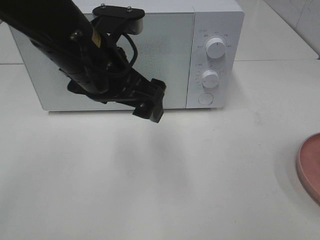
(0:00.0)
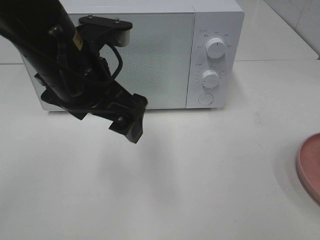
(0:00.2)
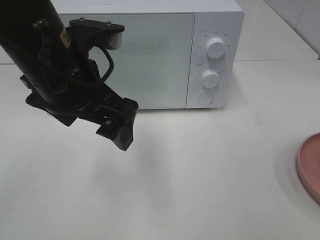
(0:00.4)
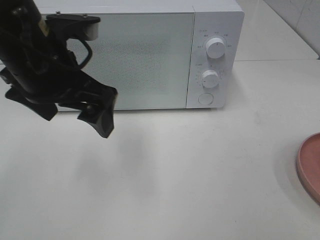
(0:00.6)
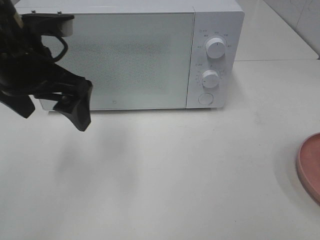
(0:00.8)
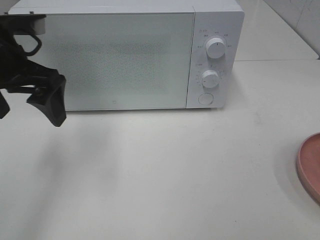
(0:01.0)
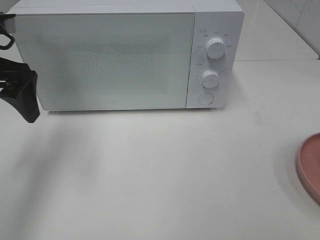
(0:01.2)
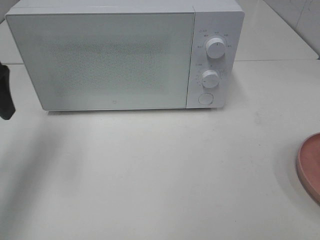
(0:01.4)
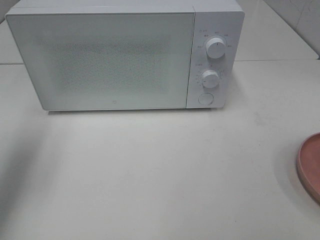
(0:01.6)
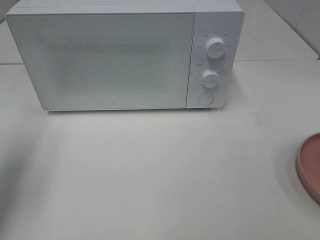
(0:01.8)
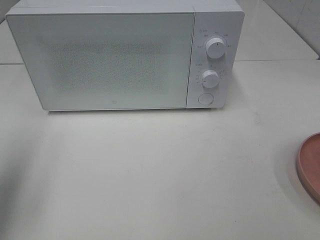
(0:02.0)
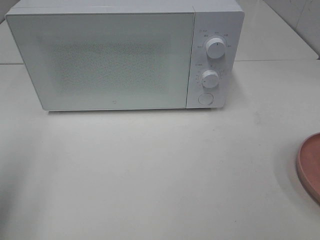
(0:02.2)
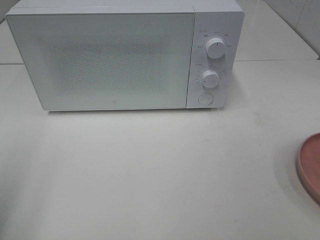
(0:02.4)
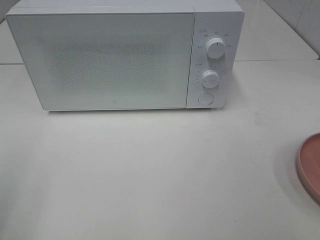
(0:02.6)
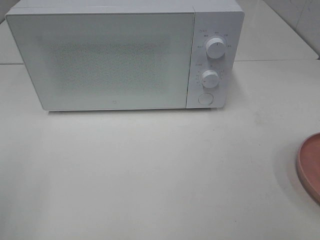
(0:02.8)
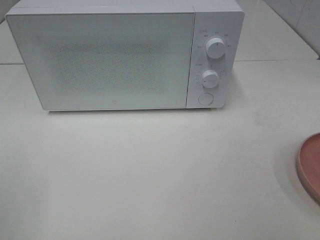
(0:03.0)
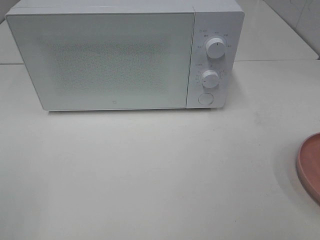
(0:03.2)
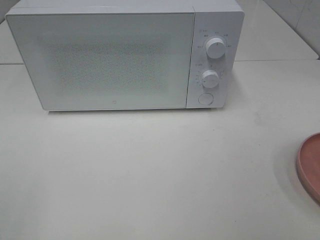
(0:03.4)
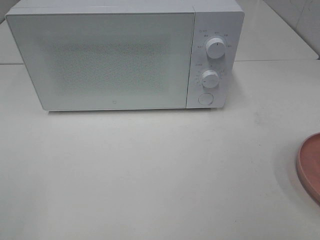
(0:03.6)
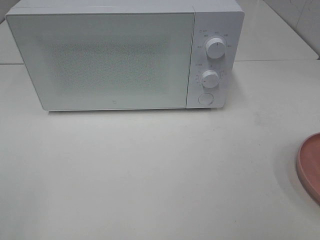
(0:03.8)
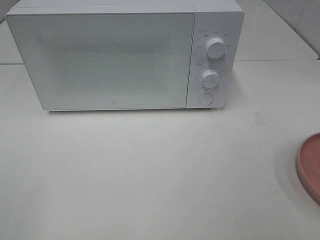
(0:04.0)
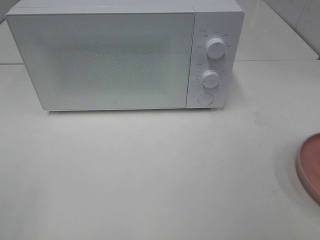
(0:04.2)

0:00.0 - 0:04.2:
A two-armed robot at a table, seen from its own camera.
Task of the whole recording: Heat the burger.
0:00.0 - 0:01.4: The left gripper is displaced to the left by approximately 20 cm.
0:01.4 - 0:02.8: The left gripper is displaced backward by roughly 25 cm.

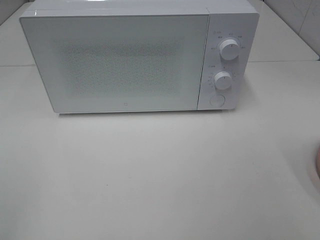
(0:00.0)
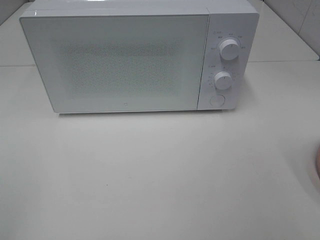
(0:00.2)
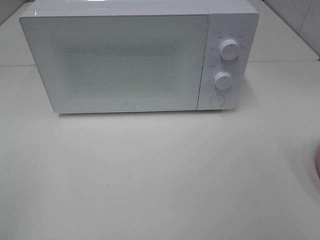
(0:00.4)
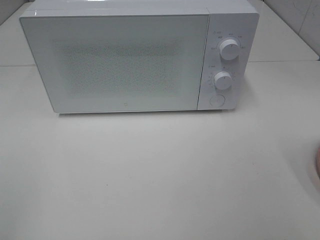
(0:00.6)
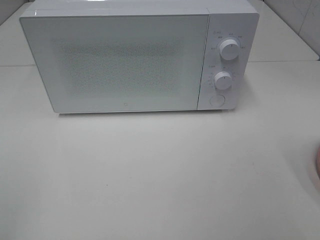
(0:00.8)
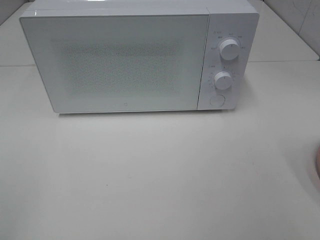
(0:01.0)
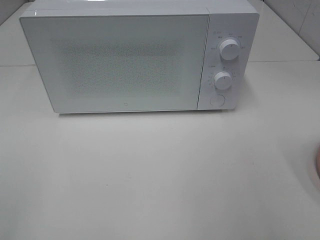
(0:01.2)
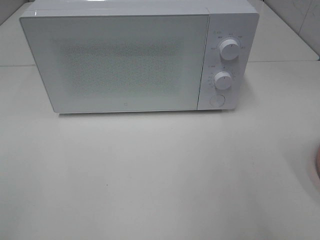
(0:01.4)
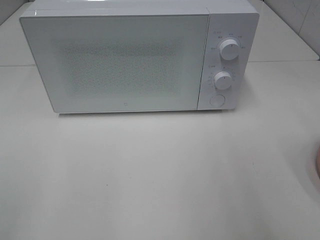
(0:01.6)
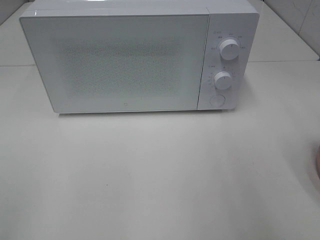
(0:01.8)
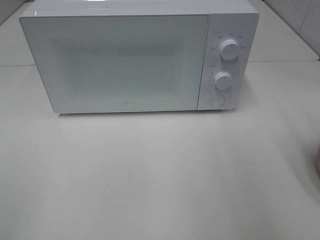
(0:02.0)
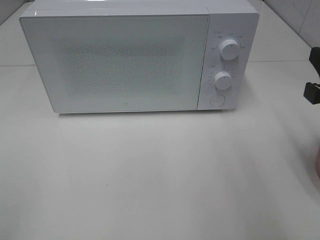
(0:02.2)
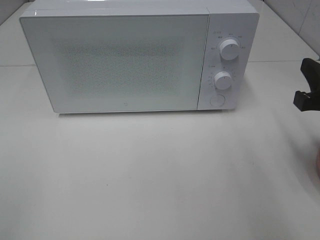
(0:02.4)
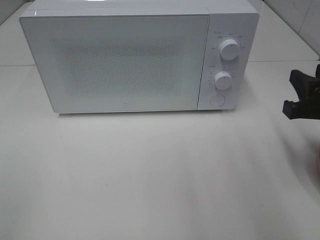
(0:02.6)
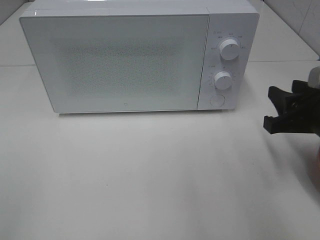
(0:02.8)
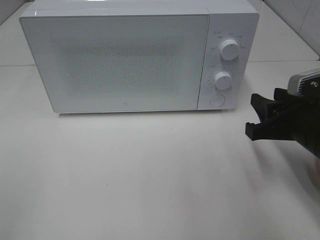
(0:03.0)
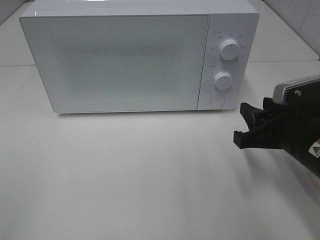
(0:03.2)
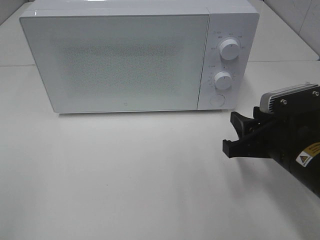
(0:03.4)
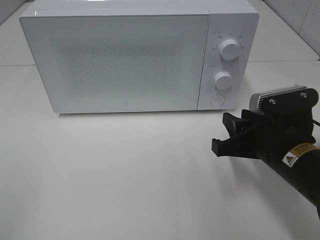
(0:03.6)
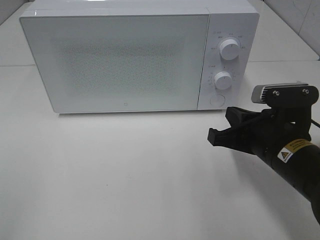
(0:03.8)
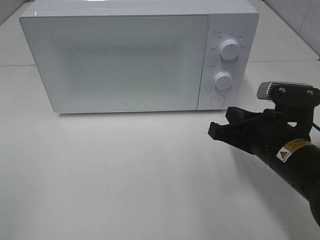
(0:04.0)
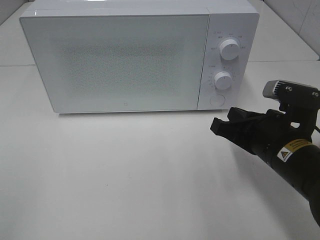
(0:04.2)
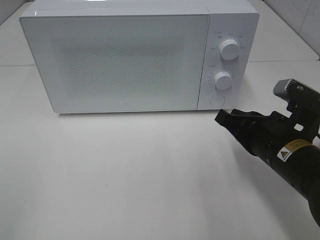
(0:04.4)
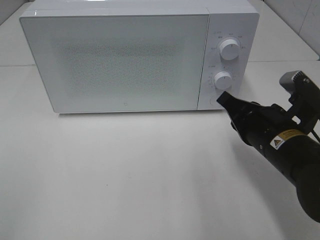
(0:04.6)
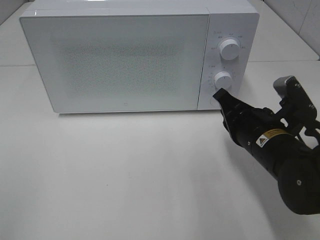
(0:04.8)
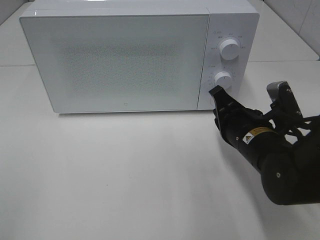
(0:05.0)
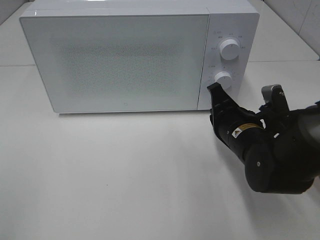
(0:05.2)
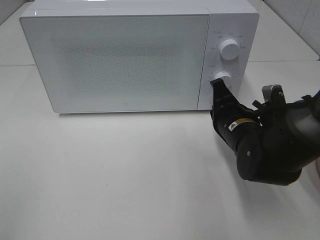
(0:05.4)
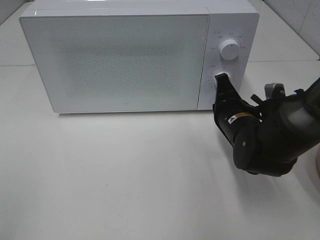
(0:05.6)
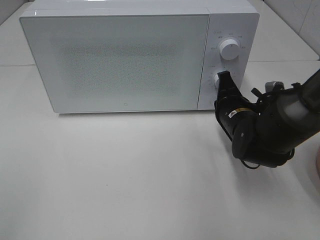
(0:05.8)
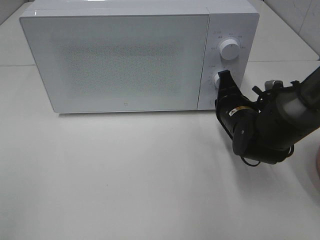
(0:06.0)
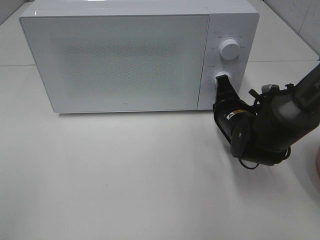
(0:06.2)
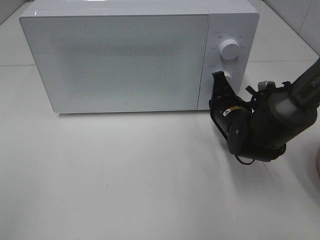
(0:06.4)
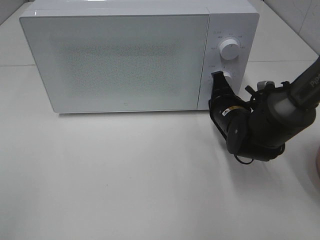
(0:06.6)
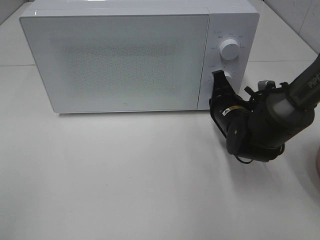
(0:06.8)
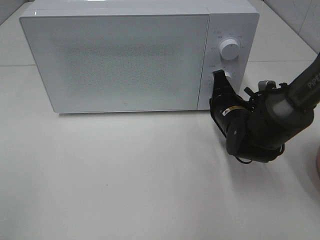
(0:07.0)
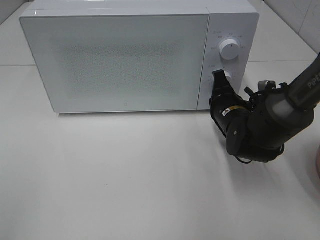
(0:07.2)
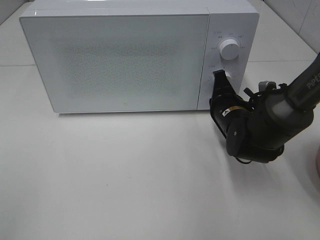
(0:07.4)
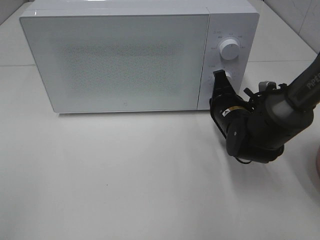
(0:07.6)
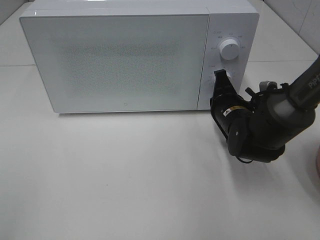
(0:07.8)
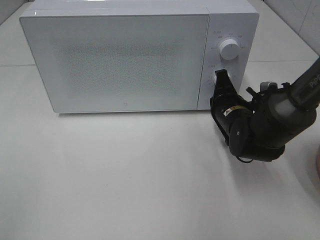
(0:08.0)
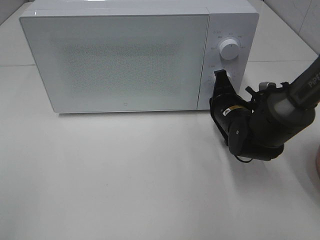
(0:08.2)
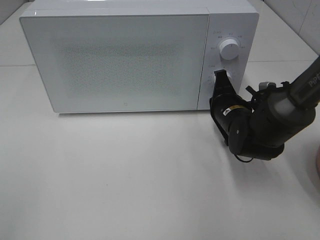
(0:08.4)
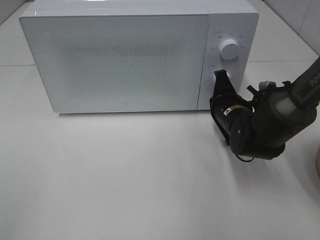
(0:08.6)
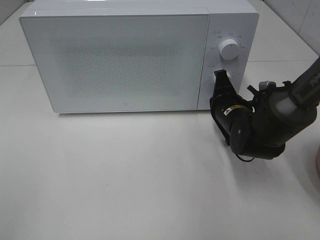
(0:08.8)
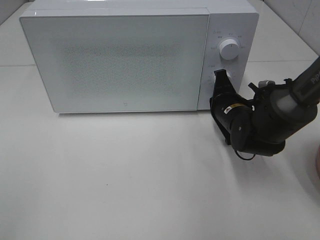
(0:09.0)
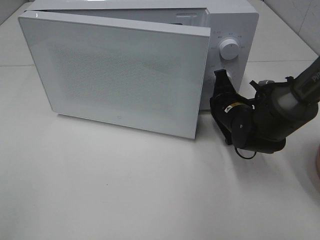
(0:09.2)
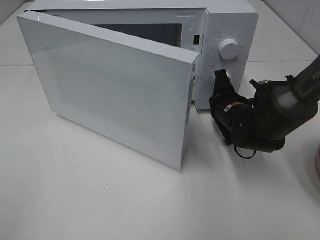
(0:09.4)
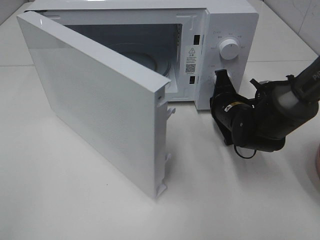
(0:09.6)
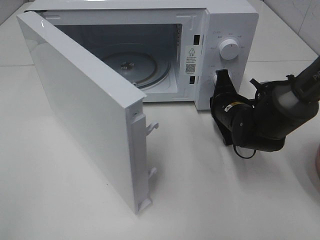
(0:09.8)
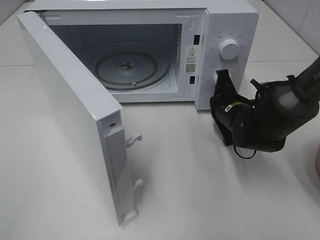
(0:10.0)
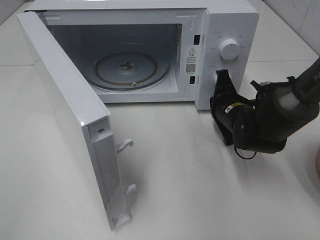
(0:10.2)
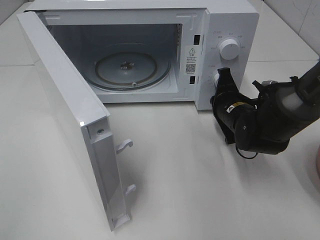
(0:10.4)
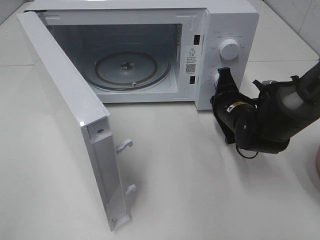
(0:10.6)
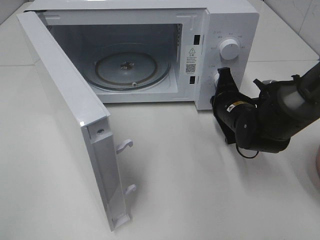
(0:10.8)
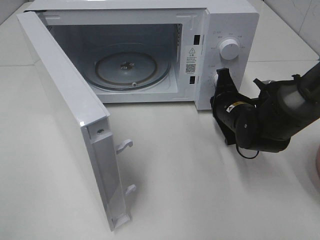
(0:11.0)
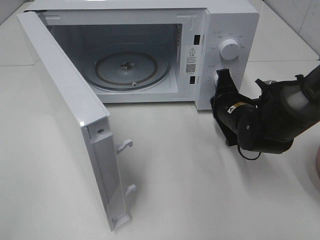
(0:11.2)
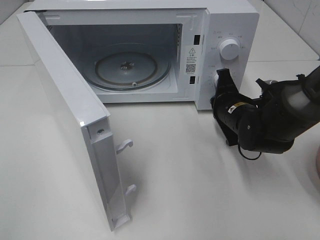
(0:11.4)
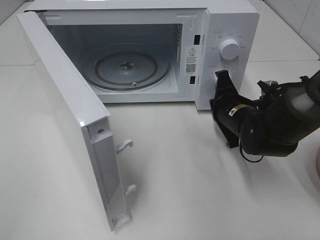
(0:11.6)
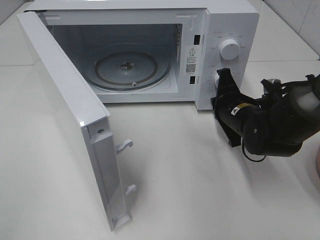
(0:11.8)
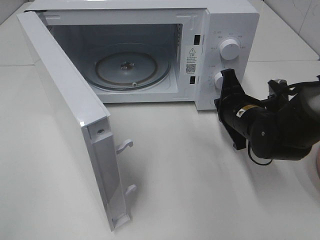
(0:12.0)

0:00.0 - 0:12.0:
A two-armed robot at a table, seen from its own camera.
Task of the whole recording: Heat the burger.
Step, 0:00.0 - 0:11.6: Right hand: press the switch.
0:01.6 - 0:03.0: The right gripper shifts approximately 20 cm downward and forward.
0:03.0 - 0:04.4: The right gripper ends up about 5 cm from where it was, and closes up.
0:04.4 - 0:06.0: The right gripper moves forward, some 10 cm.
0:06.0 - 0:07.6: The grippers stay close to where they were, moving slightly.
0:07.6 - 0:09.0: The two grippers keep their place.
0:10.4 - 0:12.0: The grippers move only a little.

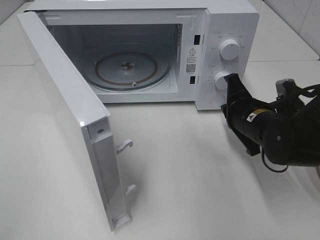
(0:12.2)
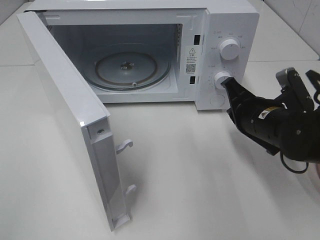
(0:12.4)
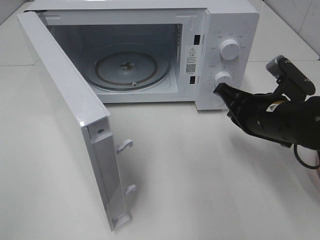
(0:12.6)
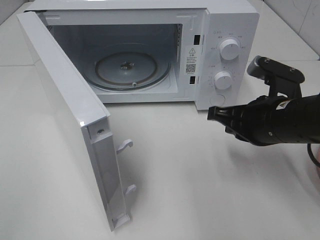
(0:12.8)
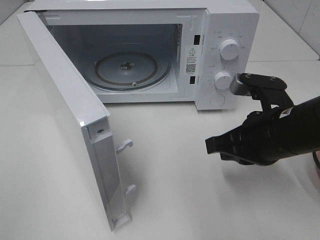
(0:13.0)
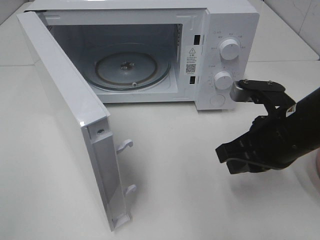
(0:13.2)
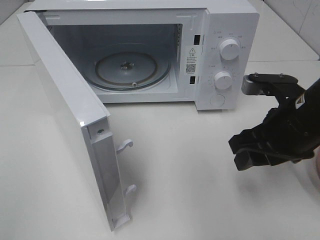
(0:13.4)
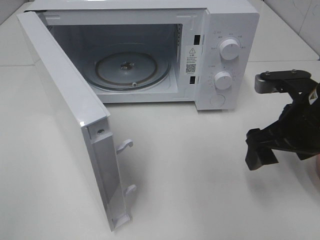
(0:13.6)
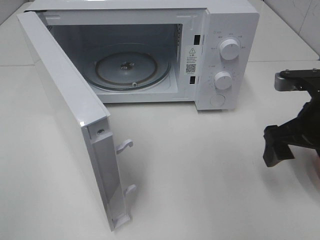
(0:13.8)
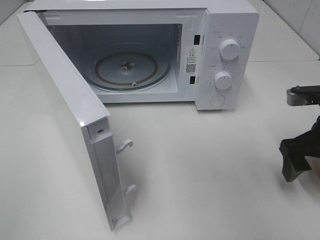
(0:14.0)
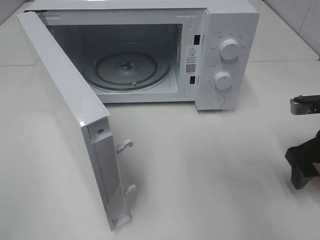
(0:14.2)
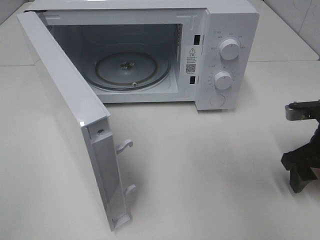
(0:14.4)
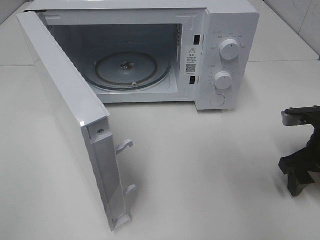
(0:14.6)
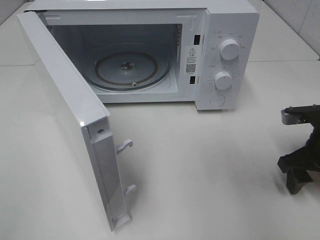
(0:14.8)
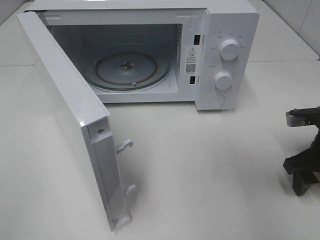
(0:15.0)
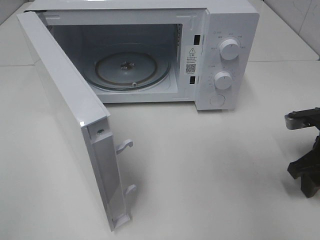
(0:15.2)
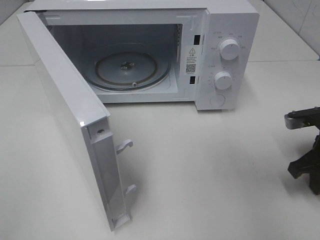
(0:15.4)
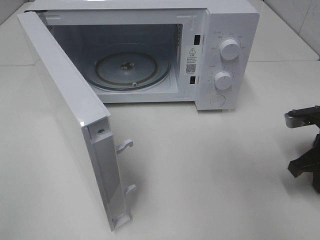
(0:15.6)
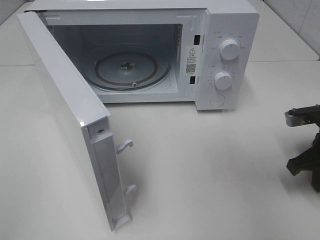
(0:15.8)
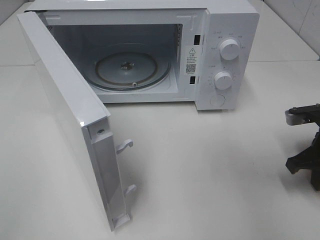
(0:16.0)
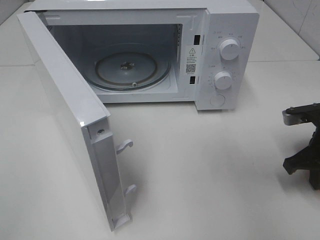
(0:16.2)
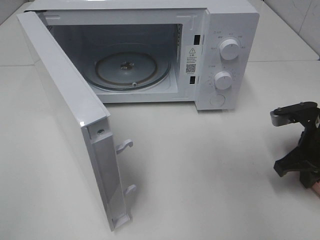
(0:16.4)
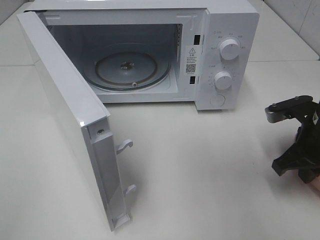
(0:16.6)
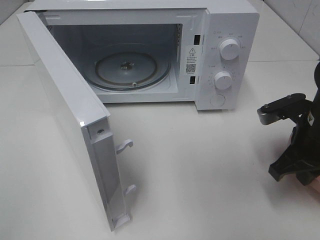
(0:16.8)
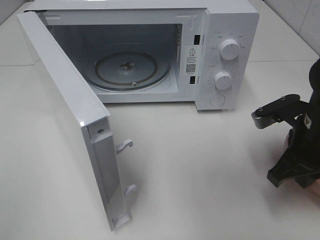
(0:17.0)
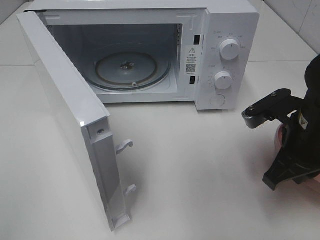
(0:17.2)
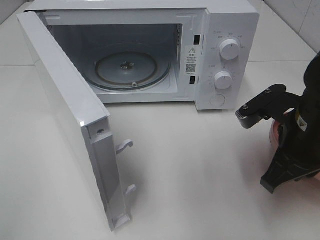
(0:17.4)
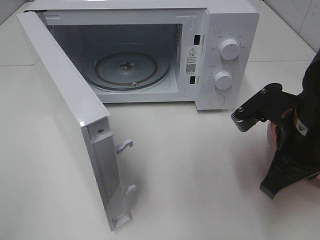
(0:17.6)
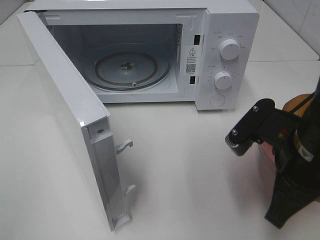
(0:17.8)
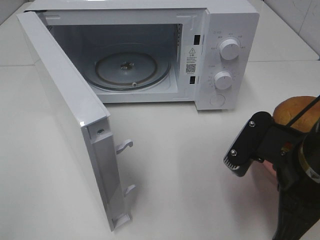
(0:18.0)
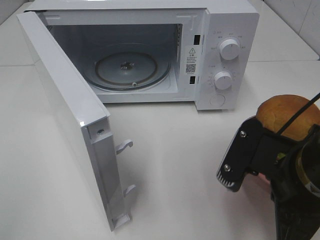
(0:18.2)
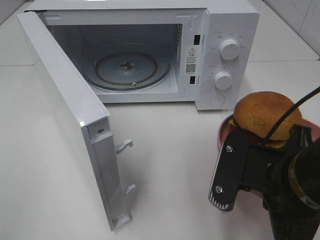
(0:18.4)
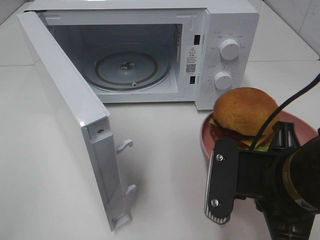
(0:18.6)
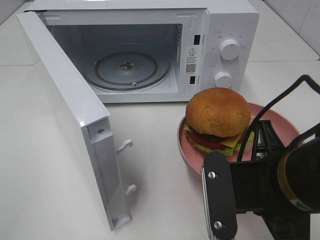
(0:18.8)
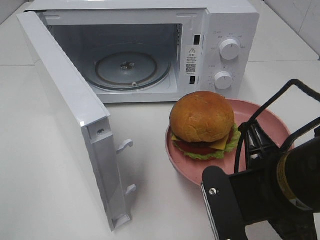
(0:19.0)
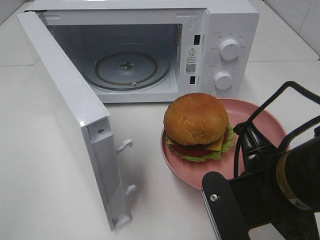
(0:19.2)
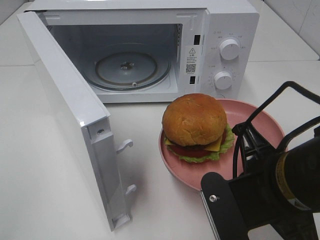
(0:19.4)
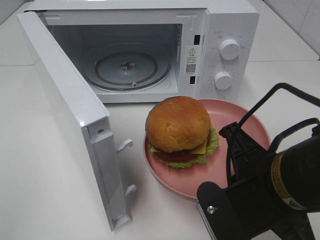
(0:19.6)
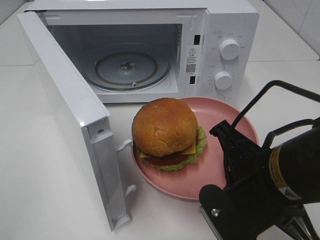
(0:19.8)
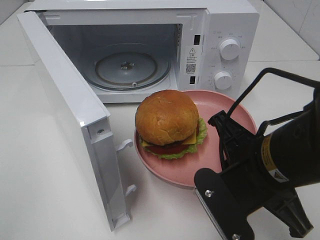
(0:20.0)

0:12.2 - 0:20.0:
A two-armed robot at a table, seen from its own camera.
Task of the whole recording: Heat the burger.
Step, 0:12.2 - 0:15.4: Right hand: grab the plate with the hamburger.
0:12.2 - 0:13.8: The right gripper heads upward and to the right, covering some 10 cm, and opens.
0:13.8 - 0:15.4: The right gripper heads downward and to the right, covering some 10 cm, and closes its fingers.
0:15.4 - 0:16.8: The right gripper travels to the left by roughly 5 cm.
0:16.8 - 0:18.4: The right gripper heads backward and to the left, covering approximately 15 cm.
